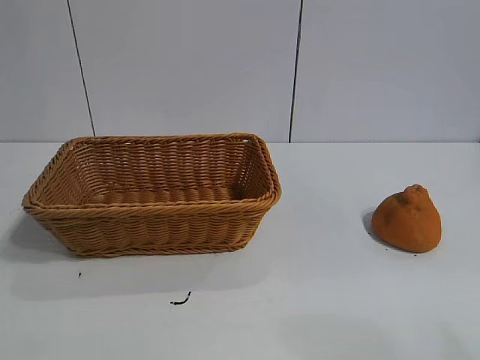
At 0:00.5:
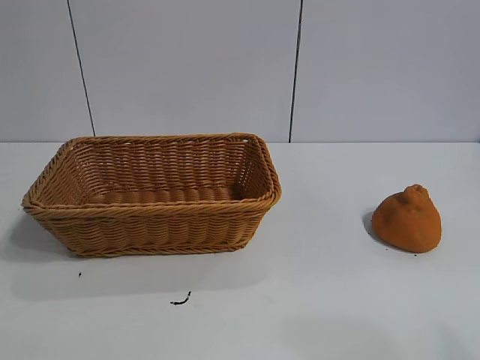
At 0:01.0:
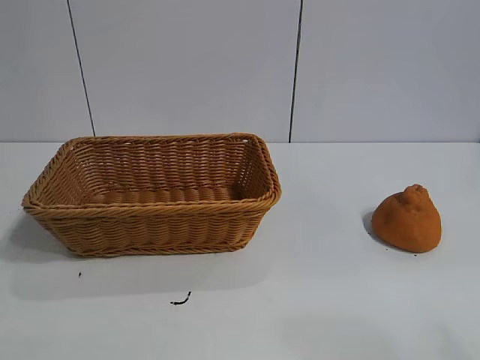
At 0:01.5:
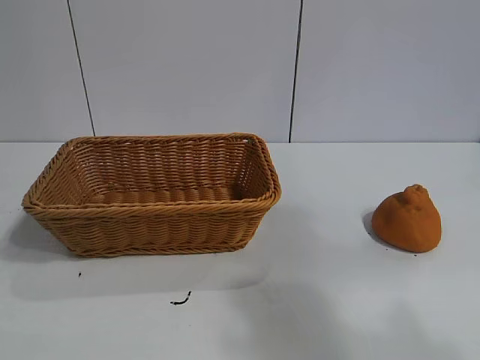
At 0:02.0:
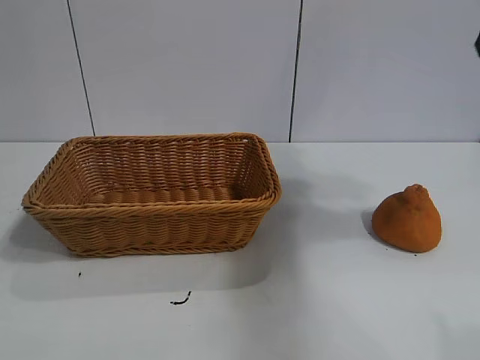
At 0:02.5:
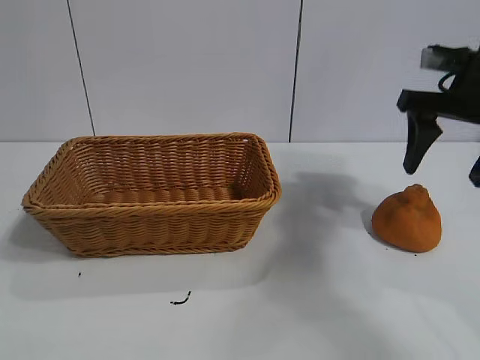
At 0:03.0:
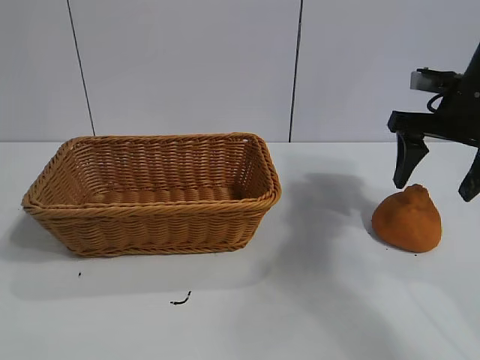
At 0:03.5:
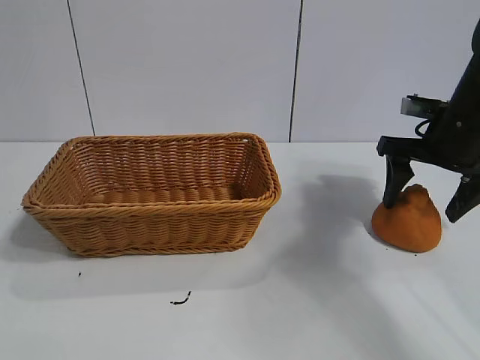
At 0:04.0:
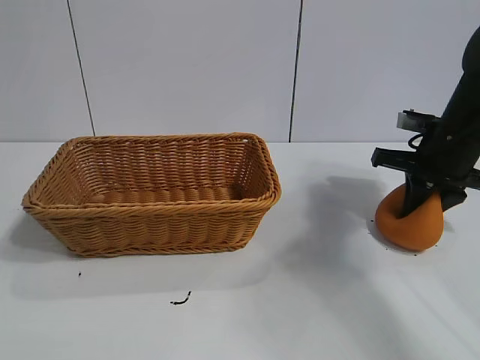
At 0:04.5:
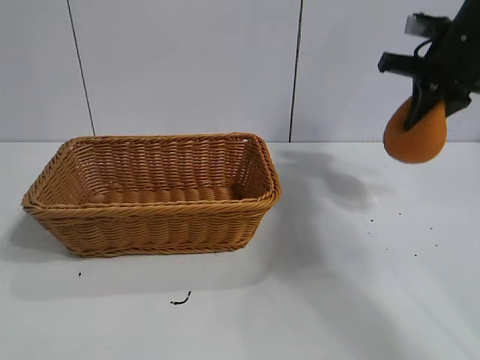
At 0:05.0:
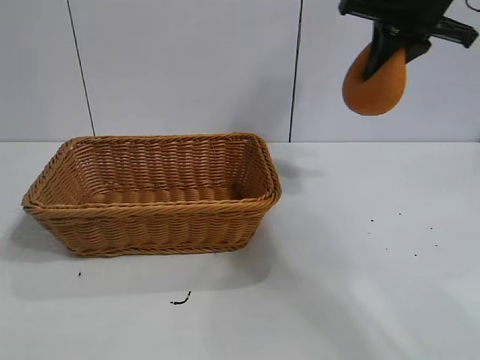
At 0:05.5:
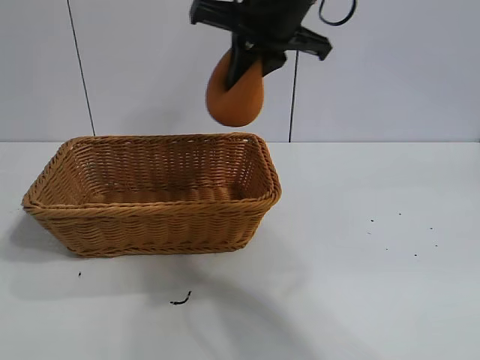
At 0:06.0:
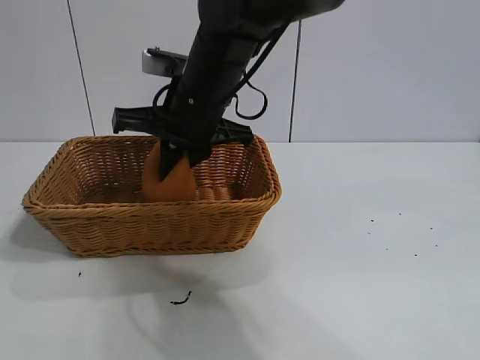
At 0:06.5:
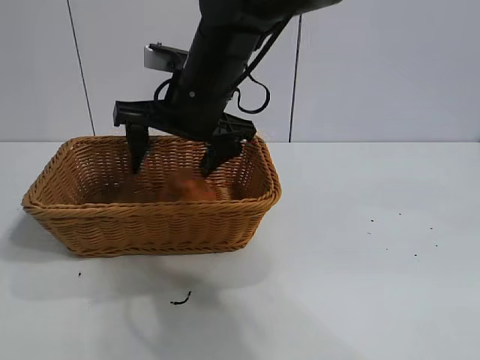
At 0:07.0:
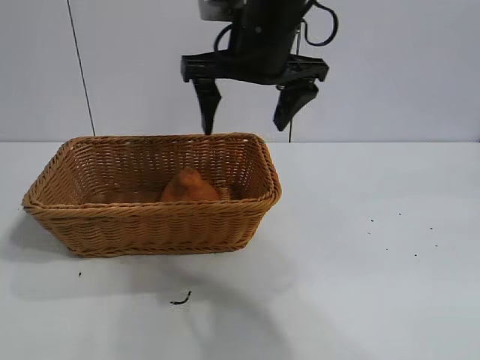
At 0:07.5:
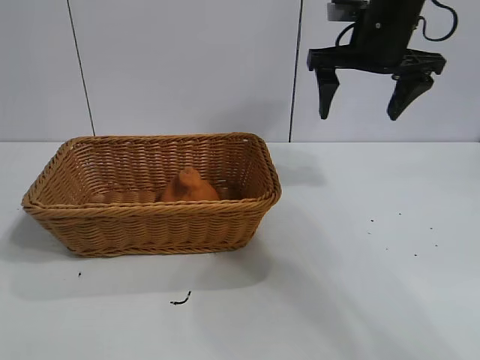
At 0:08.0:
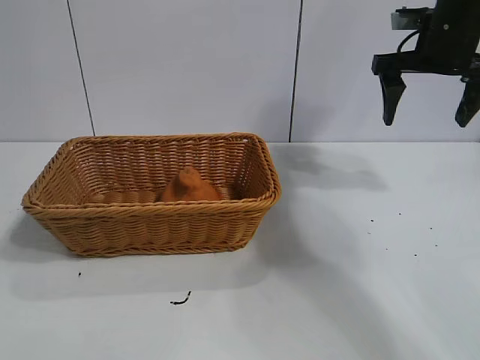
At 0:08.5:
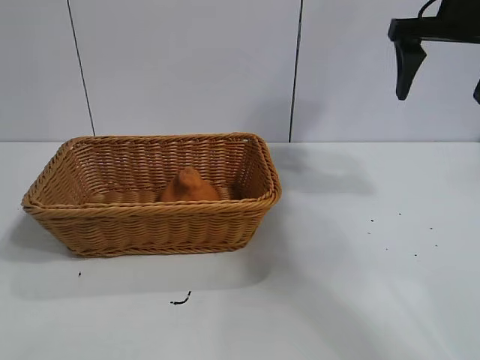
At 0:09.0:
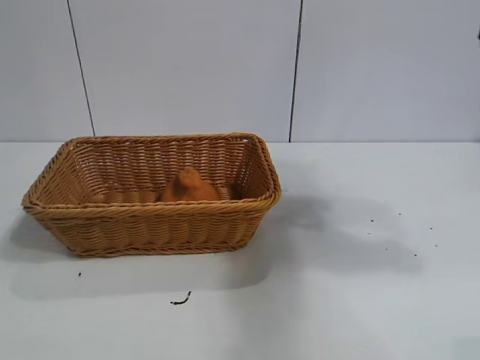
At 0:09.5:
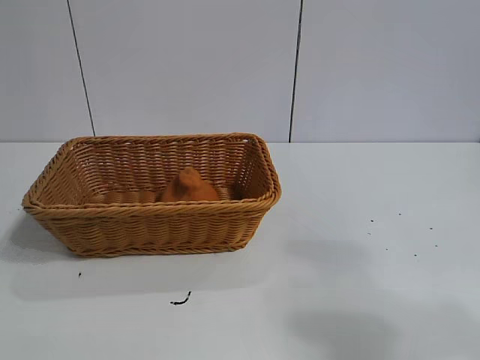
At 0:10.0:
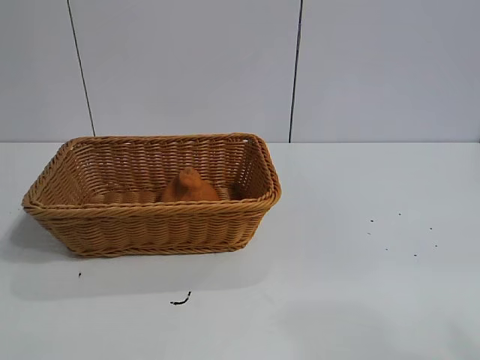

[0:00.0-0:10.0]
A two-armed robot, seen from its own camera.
Task of the whole recording: pick up the orange and put it into the basket.
Step, 0:01.0 to 0:04.0: Grasp the orange with right gripper.
Step, 0:04.5 to 0:06.0: Place the orange in the basket with right gripper.

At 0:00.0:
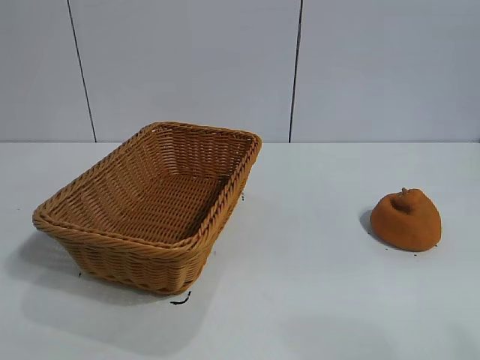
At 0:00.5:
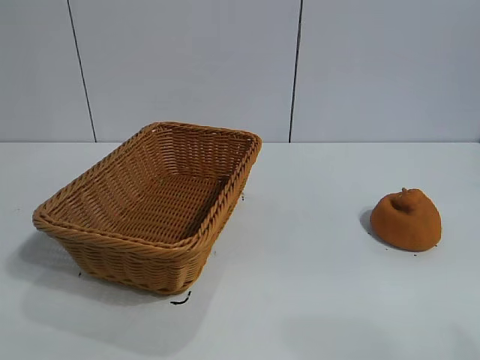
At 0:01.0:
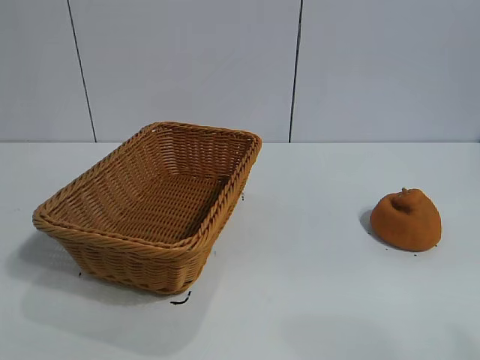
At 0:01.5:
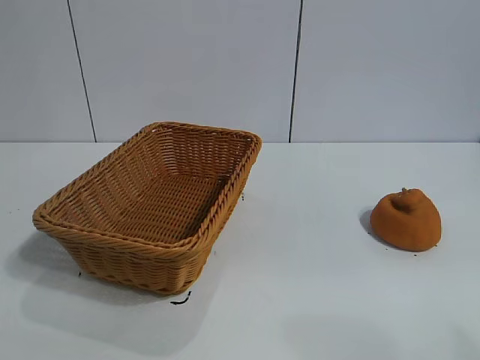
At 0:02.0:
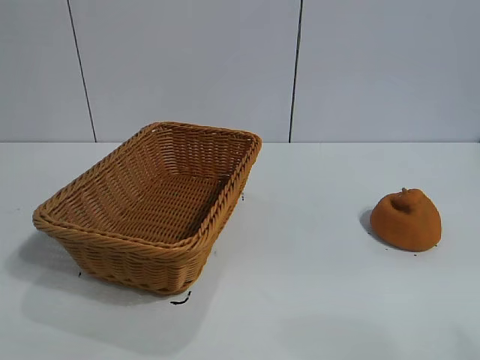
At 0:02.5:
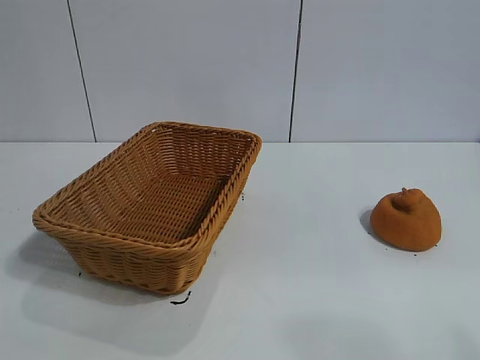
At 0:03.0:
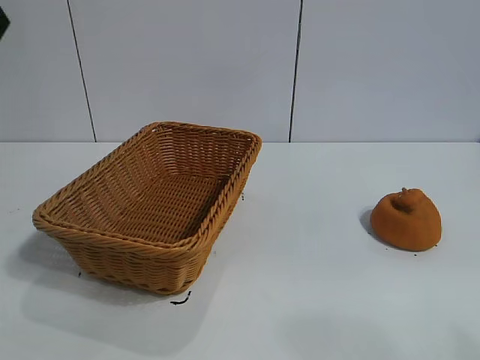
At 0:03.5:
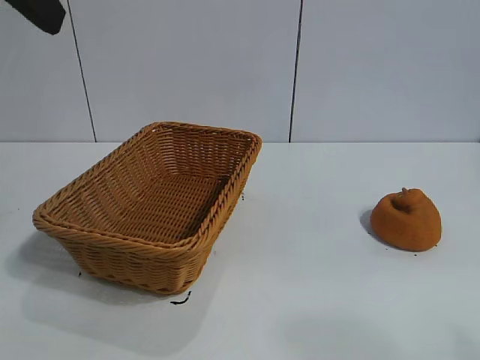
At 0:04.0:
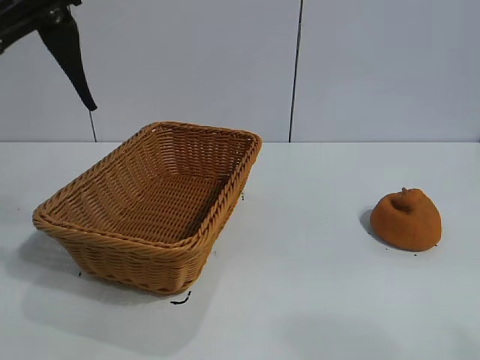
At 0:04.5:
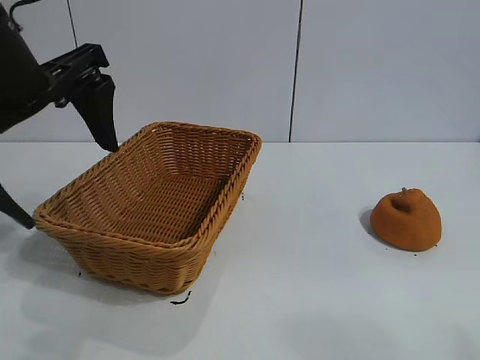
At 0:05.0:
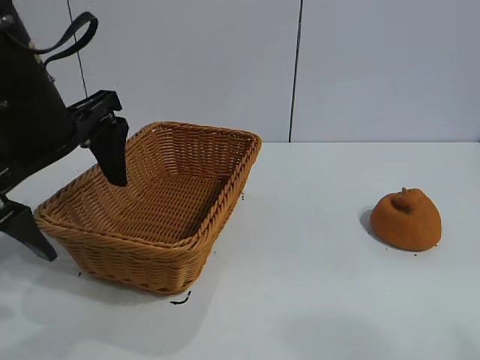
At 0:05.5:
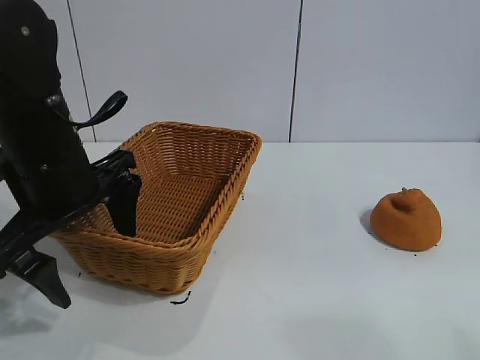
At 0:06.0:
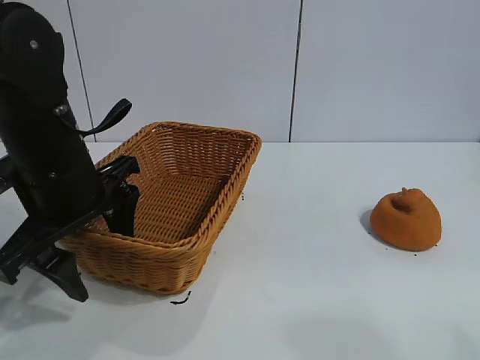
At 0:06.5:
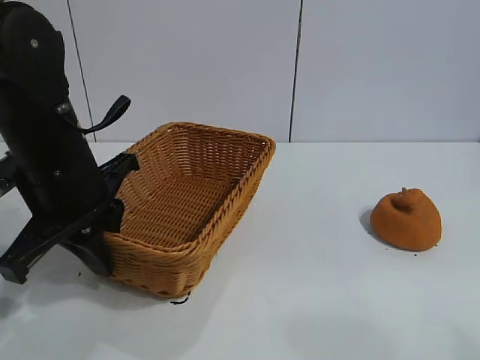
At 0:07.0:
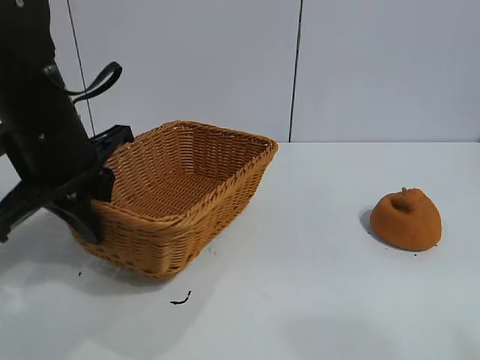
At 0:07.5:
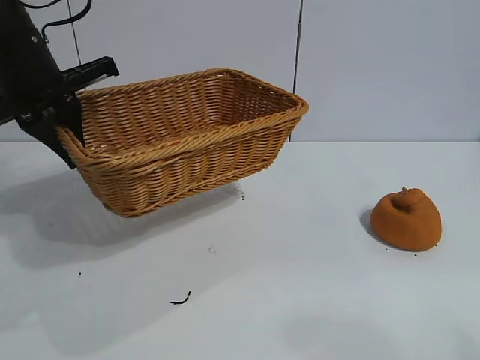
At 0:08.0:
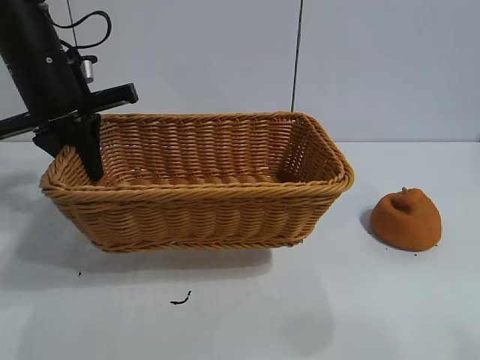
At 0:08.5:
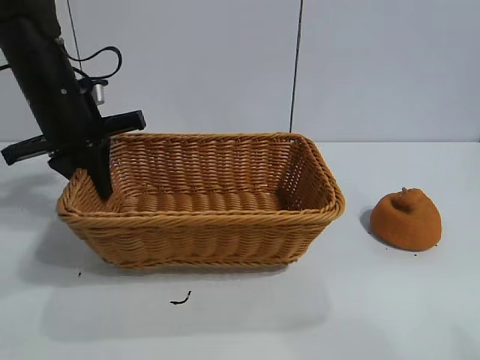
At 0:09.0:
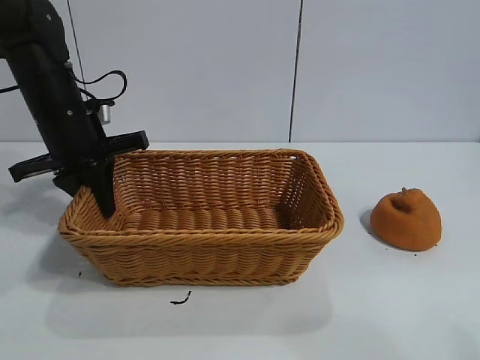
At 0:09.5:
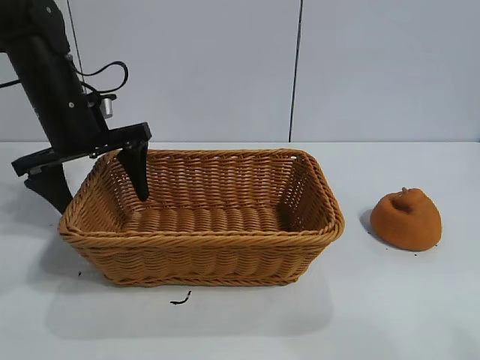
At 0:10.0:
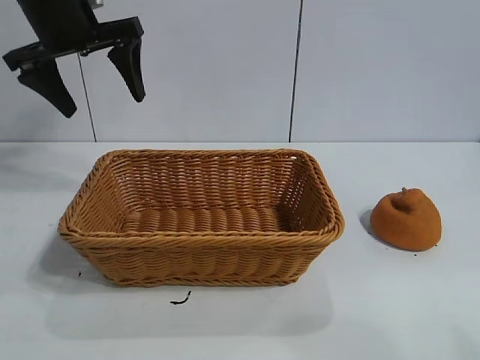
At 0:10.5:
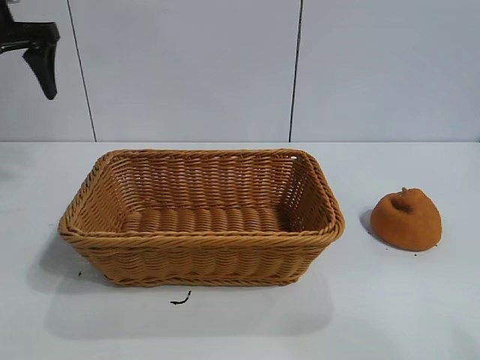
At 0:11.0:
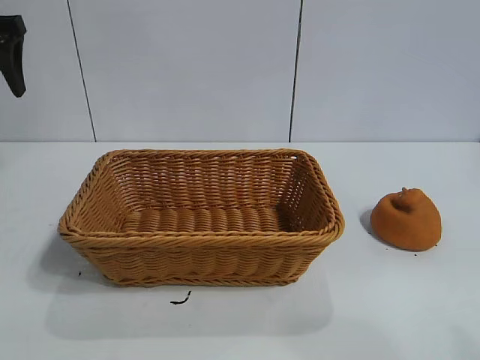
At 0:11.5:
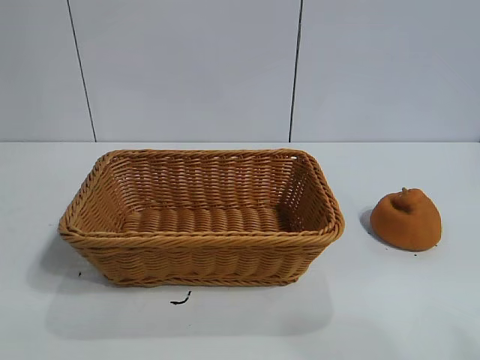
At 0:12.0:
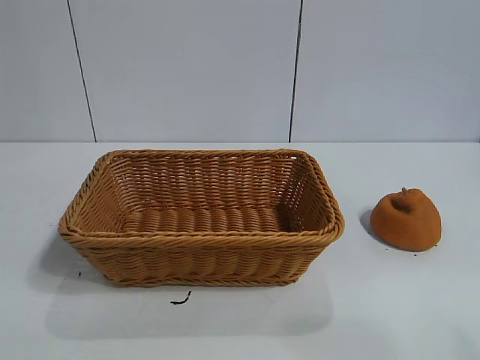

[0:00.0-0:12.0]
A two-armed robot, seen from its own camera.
Task of the whole recording: pick up the orange and put it into the basket.
Step, 0:02.0 to 0:06.5: Grasp the basket with left gripper.
Step, 0:07.0 to 0:09.0: Place the basket in the center of view with left gripper.

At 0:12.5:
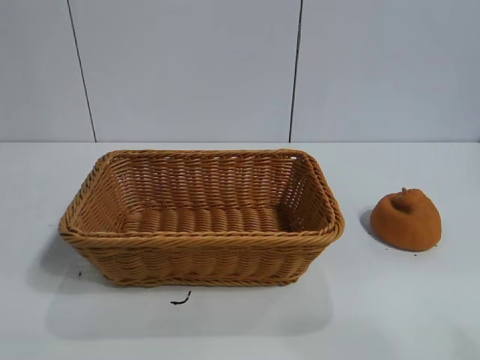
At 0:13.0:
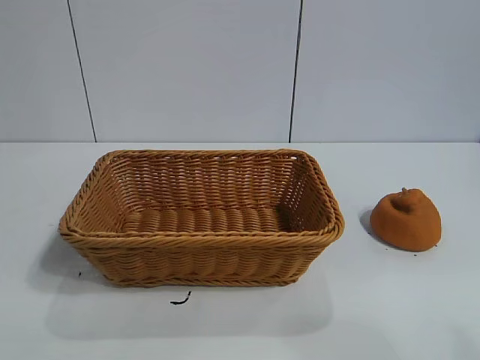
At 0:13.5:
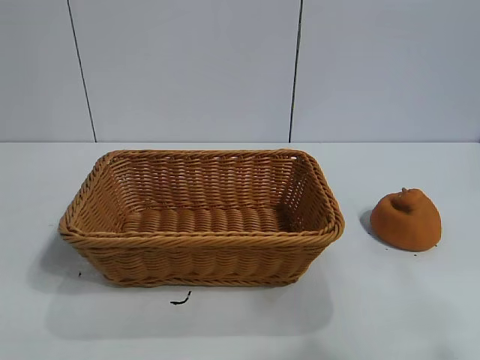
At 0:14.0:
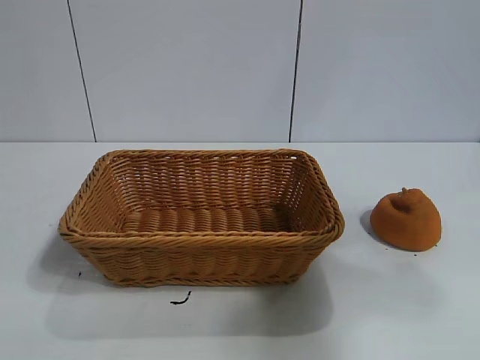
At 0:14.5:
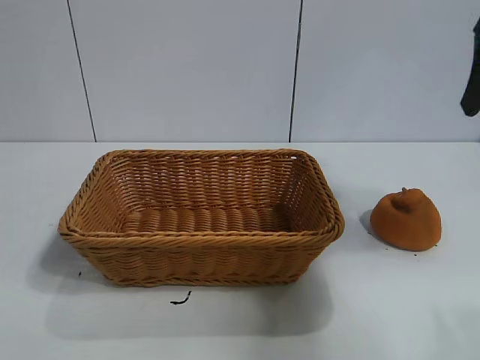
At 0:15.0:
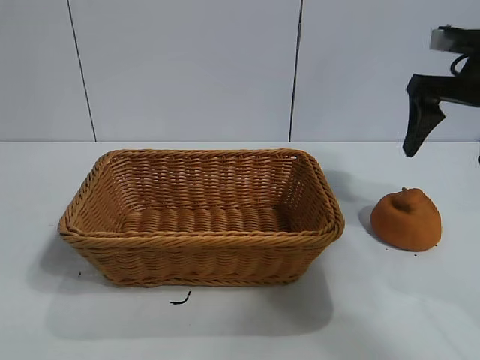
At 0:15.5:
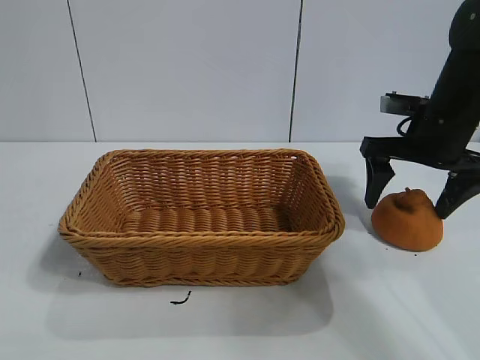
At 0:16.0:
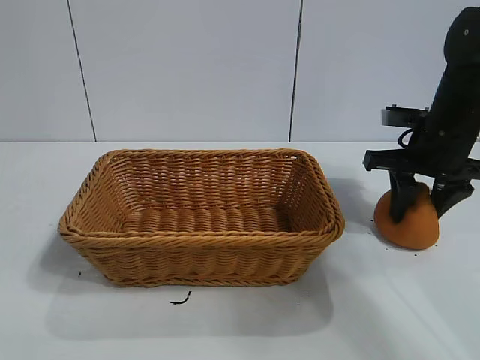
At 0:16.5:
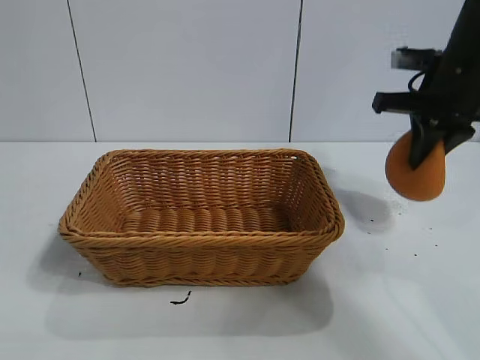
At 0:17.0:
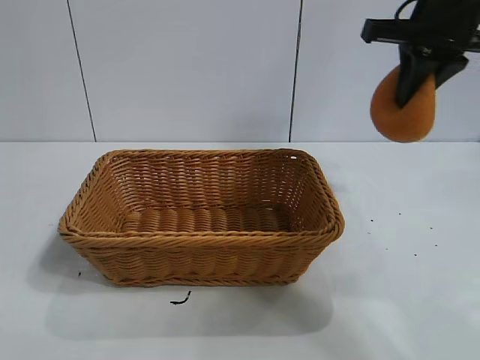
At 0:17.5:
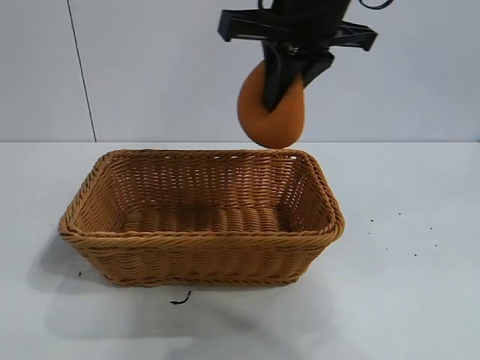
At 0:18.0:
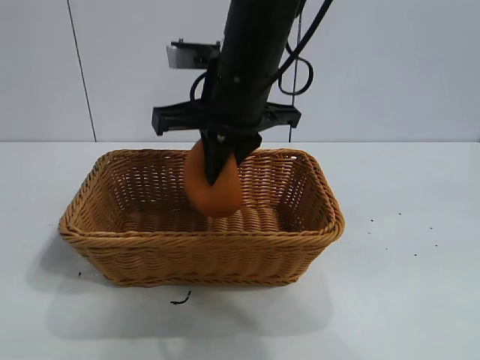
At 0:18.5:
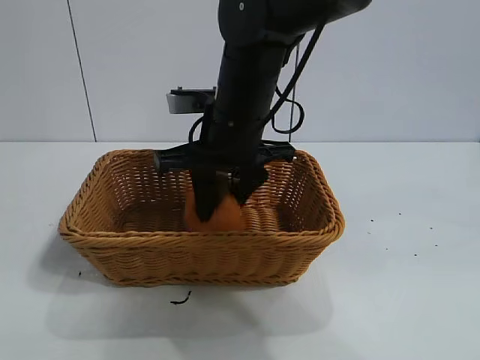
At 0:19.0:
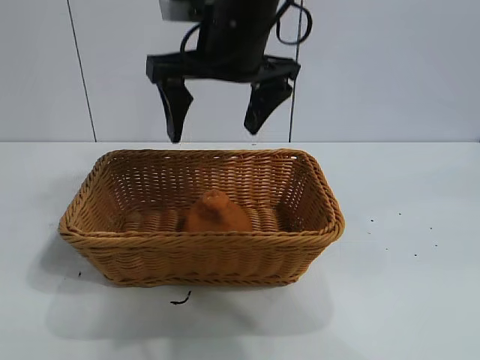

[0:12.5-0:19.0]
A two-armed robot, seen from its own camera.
Task of the whole recording: pick up the orange and put it into the basket.
Step, 0:12.5 to 0:16.0: Grasp the orange with right gripper.
Step, 0:16.5 to 0:18.5: Place the orange in the basket with right gripper.
